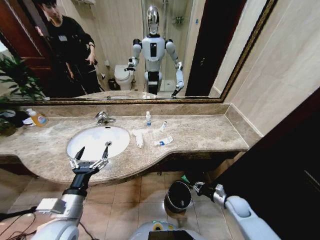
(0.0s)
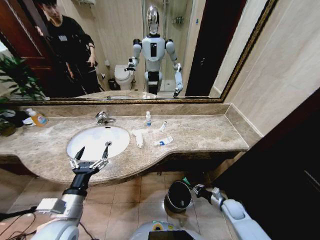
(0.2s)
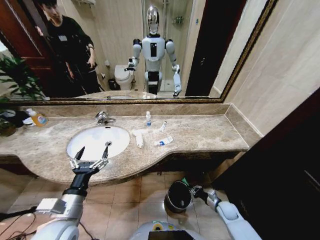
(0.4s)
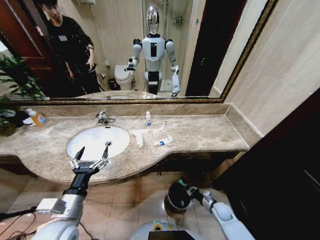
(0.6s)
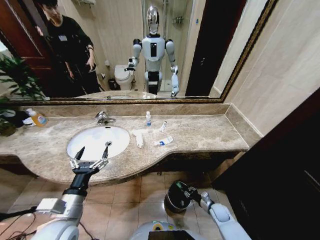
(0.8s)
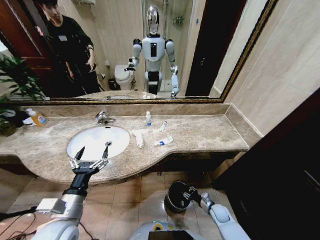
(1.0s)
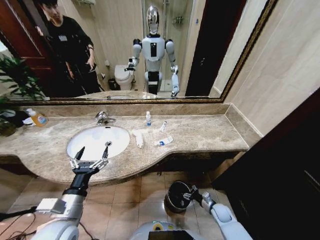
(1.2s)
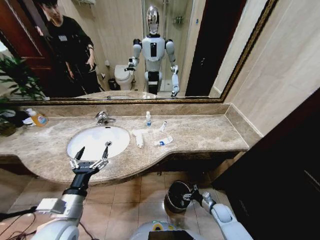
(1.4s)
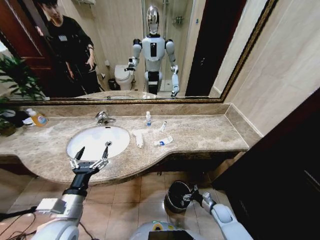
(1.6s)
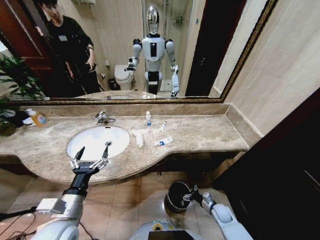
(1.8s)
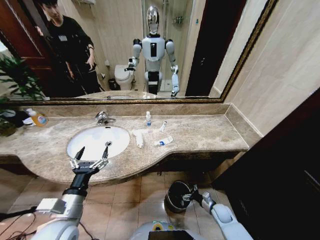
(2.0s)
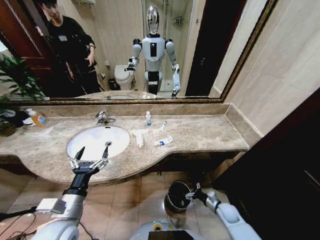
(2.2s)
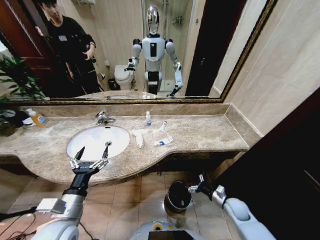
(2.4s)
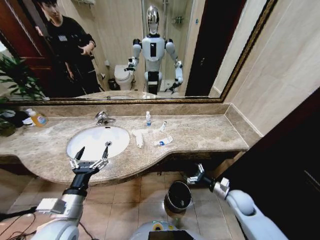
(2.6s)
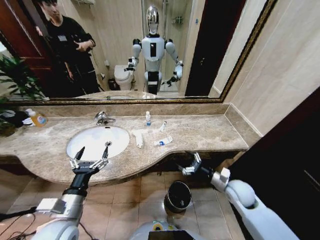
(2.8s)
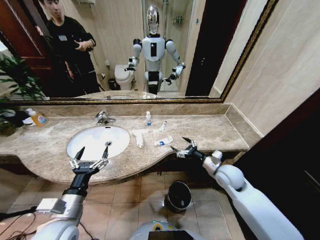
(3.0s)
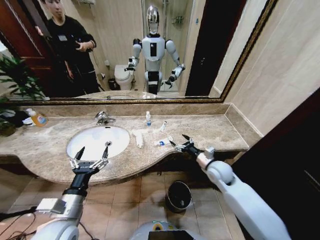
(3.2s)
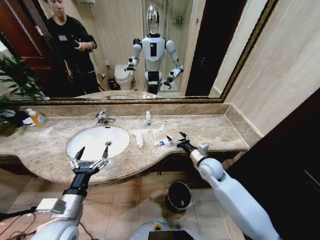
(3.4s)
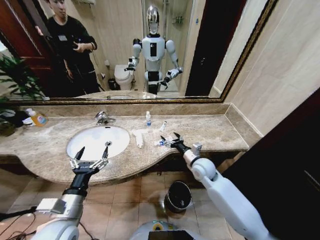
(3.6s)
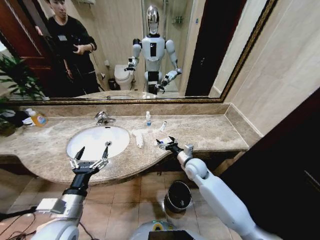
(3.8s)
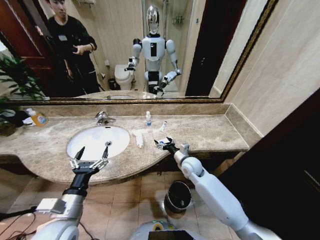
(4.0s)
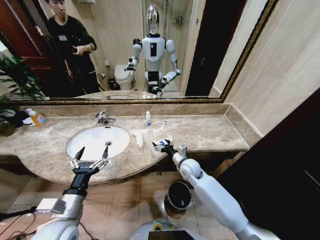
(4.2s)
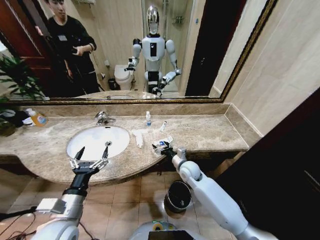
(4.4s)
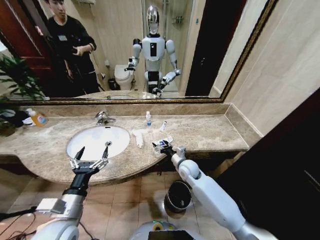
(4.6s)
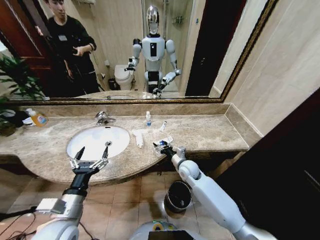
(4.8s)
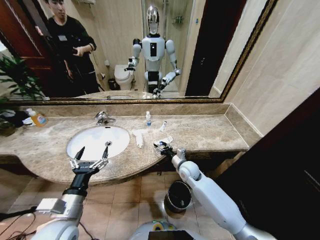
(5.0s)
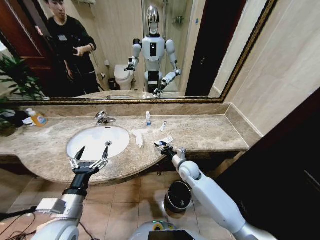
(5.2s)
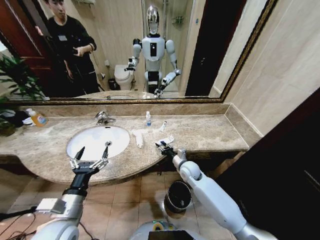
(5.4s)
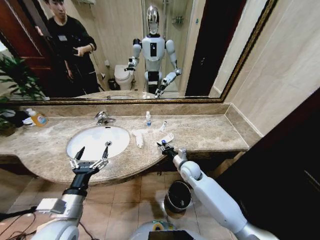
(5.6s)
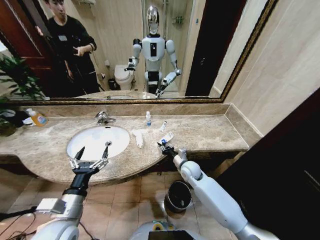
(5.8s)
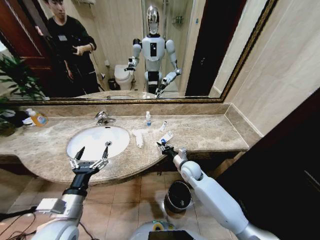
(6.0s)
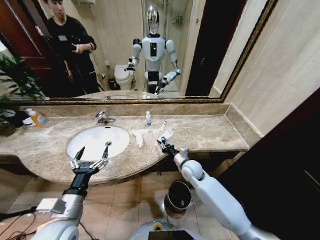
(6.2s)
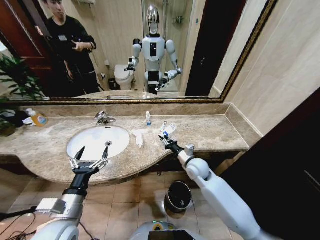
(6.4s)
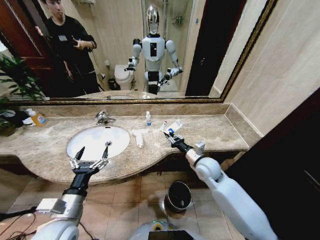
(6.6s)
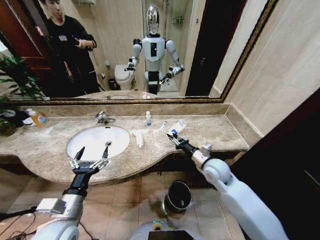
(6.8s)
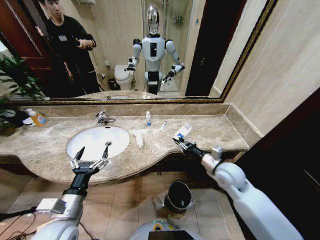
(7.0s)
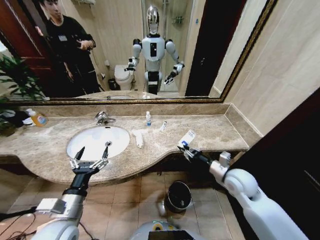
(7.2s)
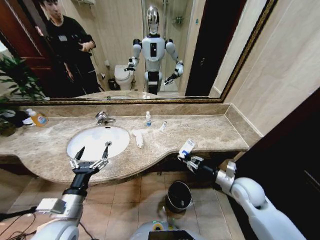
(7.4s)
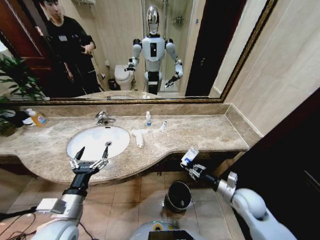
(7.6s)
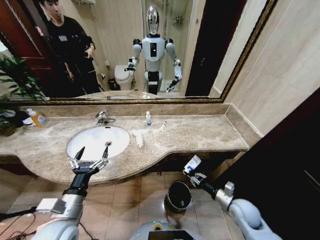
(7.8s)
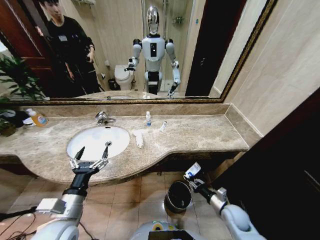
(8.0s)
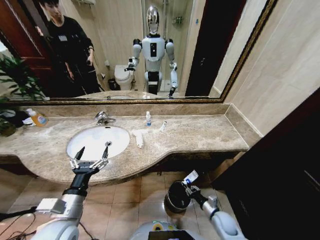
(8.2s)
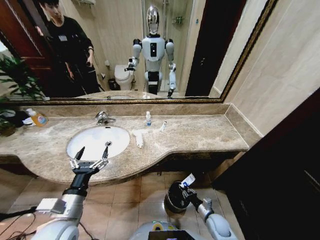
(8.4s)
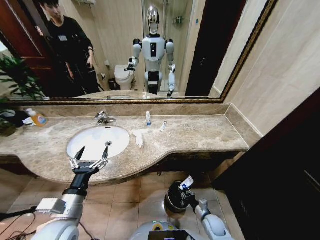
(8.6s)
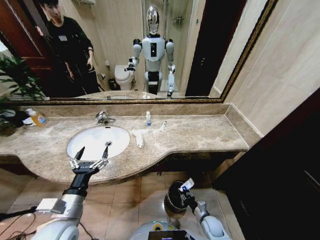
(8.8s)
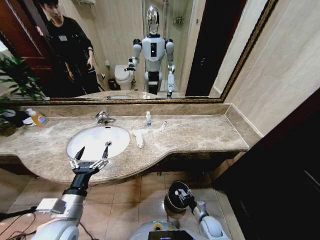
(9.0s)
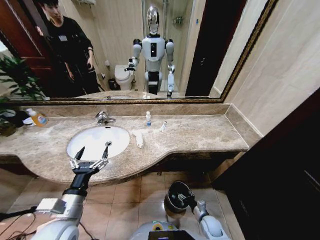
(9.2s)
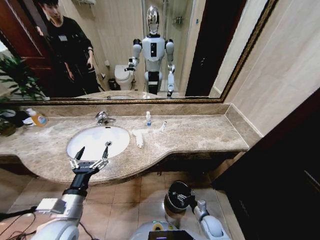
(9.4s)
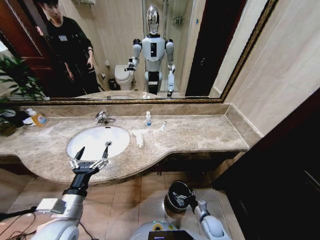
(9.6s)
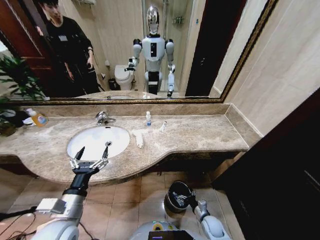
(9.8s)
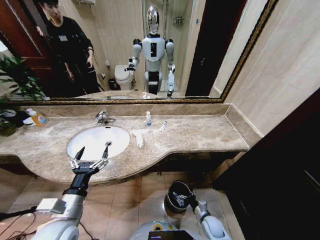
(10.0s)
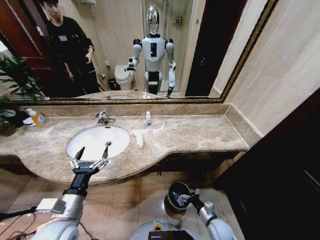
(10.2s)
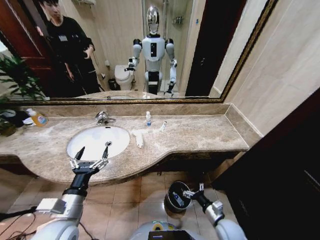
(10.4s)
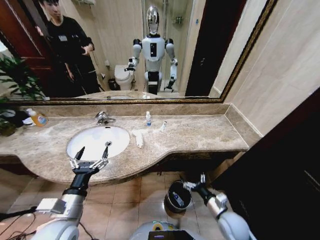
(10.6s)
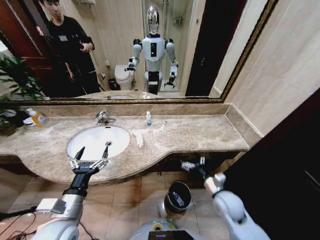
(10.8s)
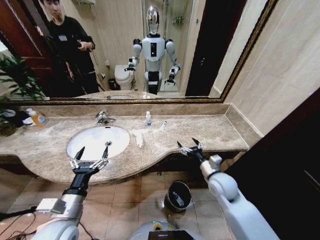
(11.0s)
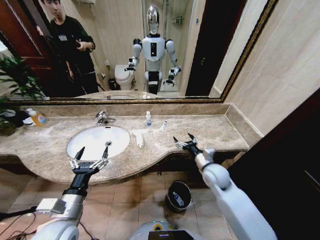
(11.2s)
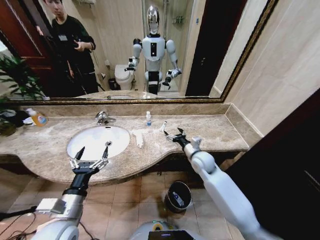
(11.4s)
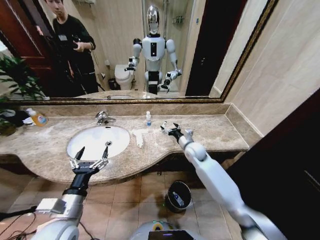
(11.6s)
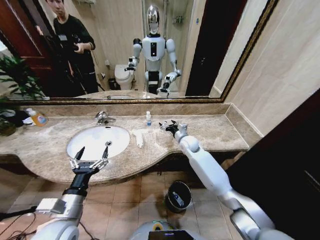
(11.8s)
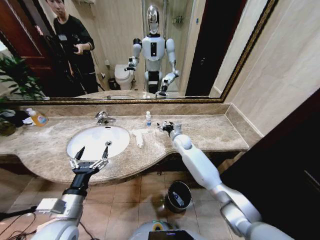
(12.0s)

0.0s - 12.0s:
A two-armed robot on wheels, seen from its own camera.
Task of the whole recording: Pick up the trash from the sink and place it in the trash bin.
0.0s - 1.6s: The right gripper travels downward and to the left by some 10 cm, and opens.
1.6s - 3.0s: The right gripper goes some 30 cm upward.
3.0s - 4.4s: The right gripper heads to the left, forward and downward, covering some 15 cm.
4.4s - 6.0s: The right gripper closes its fingers.
6.0s - 7.6s: The right gripper shifts some 25 cm to the right and backward.
7.6s - 9.0s: The right gripper is displaced downward by some 25 cm.
9.0s - 10.4s: The right gripper travels upward by roughly 10 cm, and opens its fingers.
10.4s - 12.0s: The right gripper heads forward, upward and to the left, covering about 40 cm.

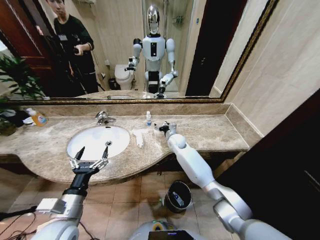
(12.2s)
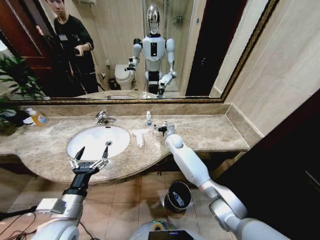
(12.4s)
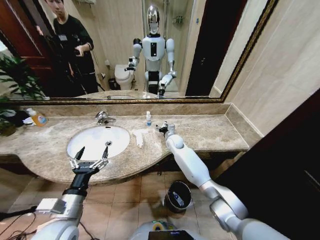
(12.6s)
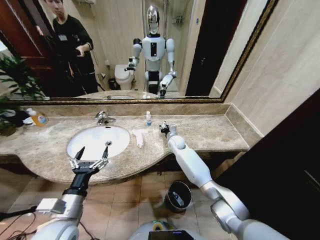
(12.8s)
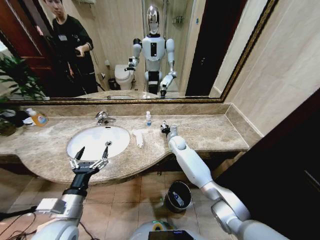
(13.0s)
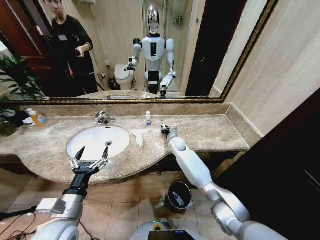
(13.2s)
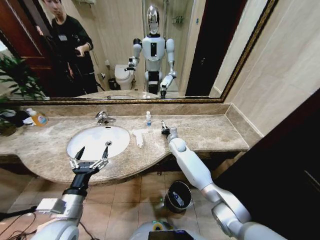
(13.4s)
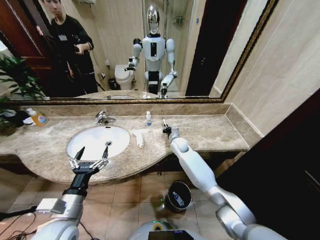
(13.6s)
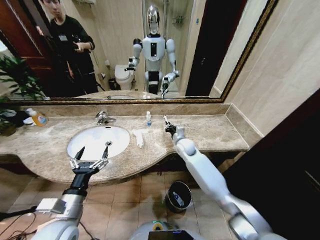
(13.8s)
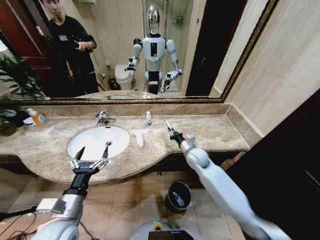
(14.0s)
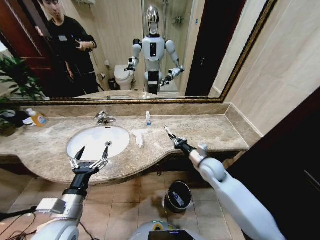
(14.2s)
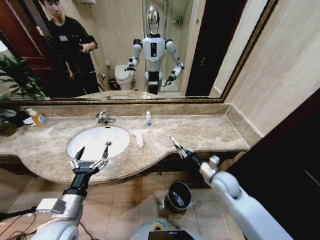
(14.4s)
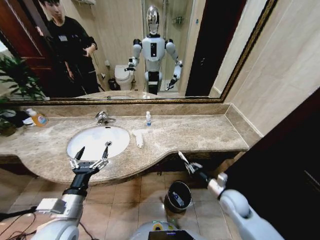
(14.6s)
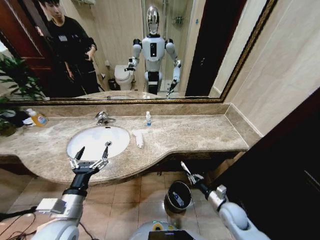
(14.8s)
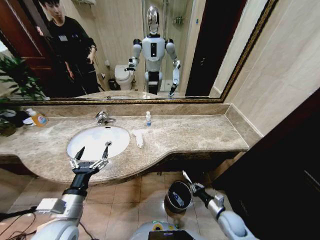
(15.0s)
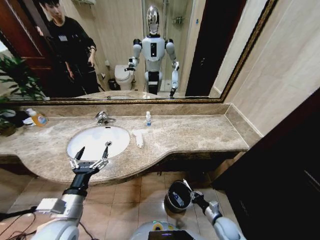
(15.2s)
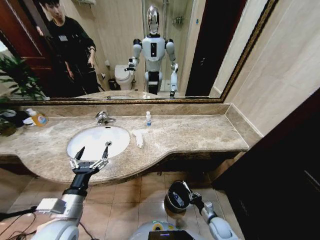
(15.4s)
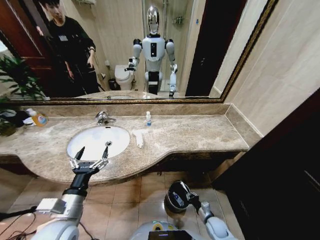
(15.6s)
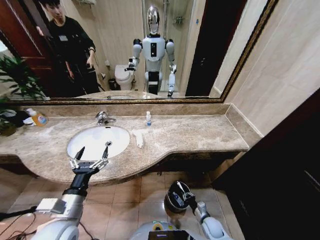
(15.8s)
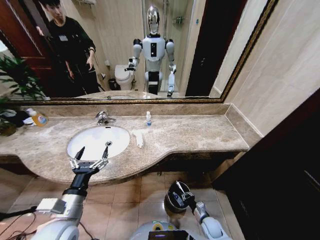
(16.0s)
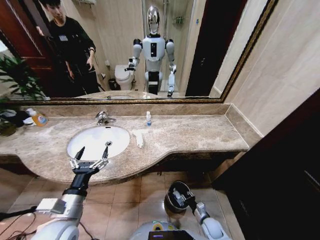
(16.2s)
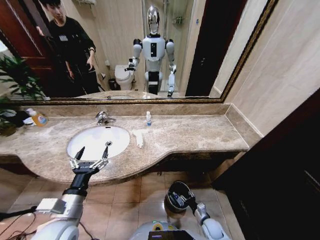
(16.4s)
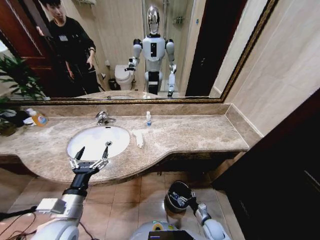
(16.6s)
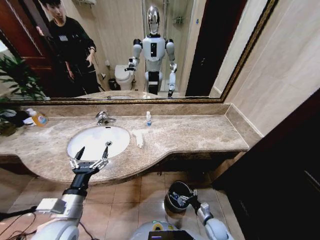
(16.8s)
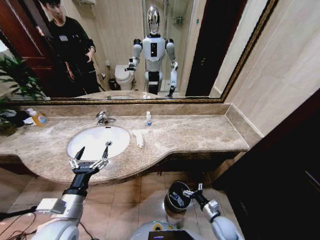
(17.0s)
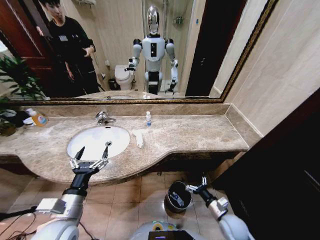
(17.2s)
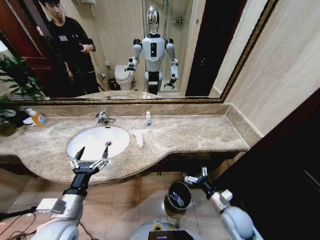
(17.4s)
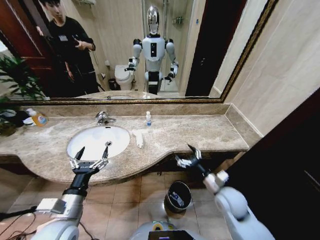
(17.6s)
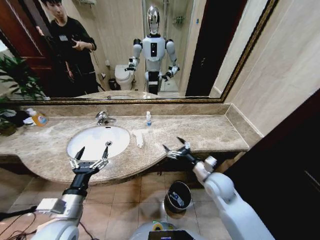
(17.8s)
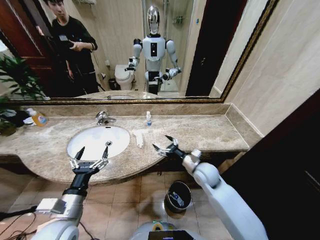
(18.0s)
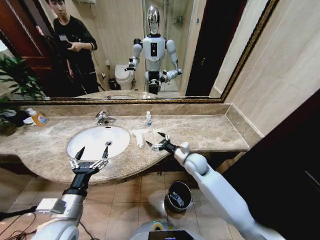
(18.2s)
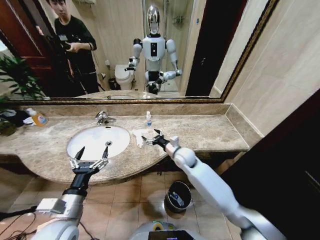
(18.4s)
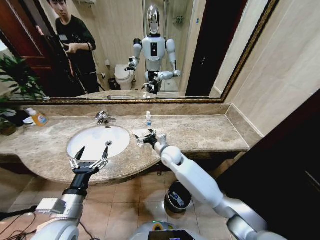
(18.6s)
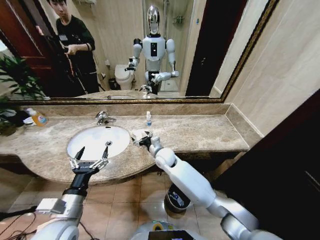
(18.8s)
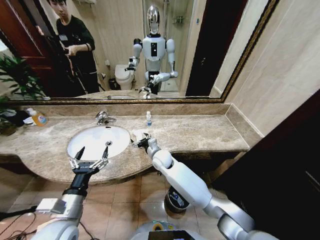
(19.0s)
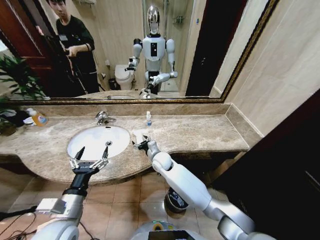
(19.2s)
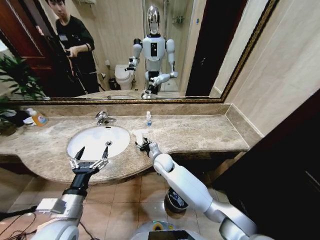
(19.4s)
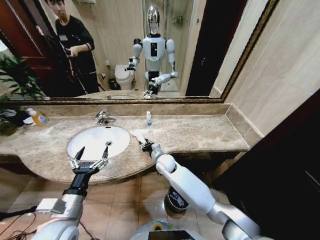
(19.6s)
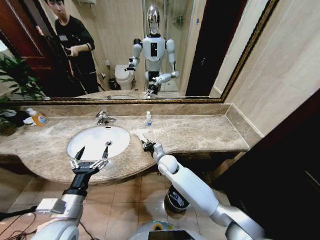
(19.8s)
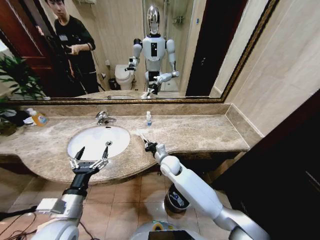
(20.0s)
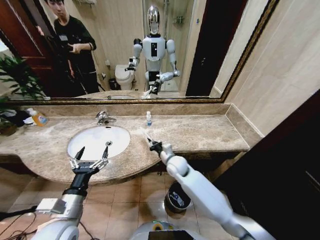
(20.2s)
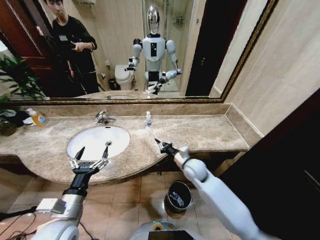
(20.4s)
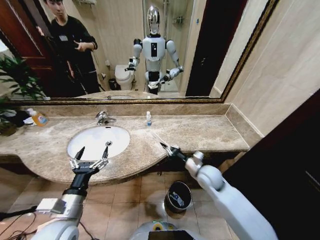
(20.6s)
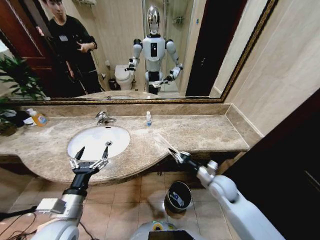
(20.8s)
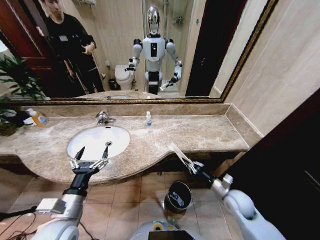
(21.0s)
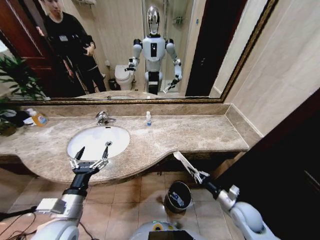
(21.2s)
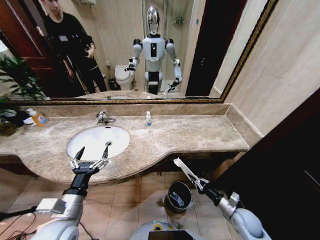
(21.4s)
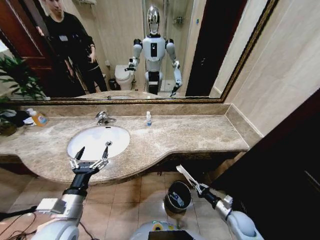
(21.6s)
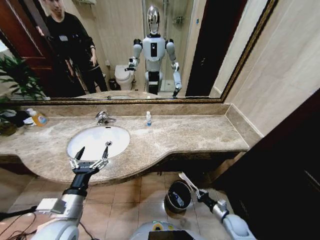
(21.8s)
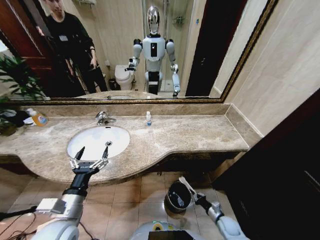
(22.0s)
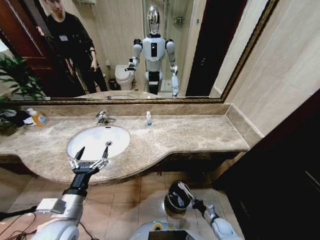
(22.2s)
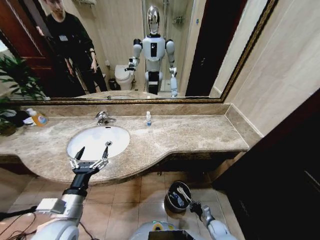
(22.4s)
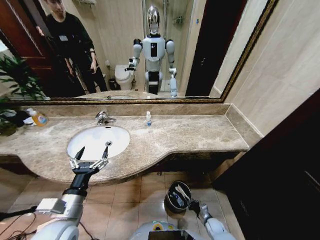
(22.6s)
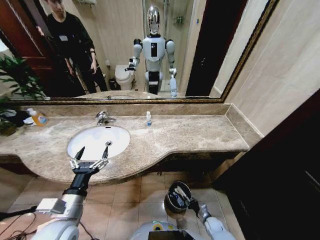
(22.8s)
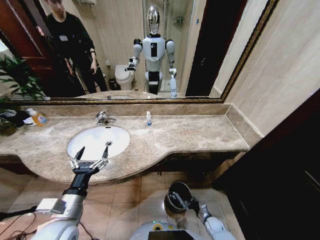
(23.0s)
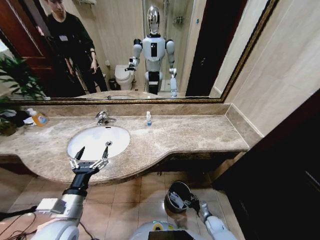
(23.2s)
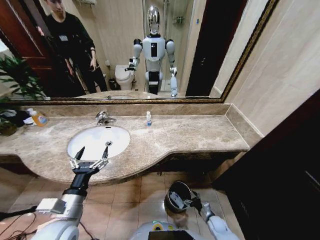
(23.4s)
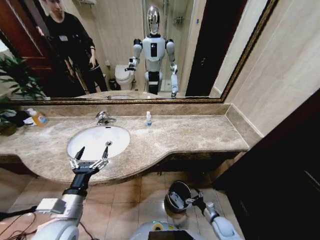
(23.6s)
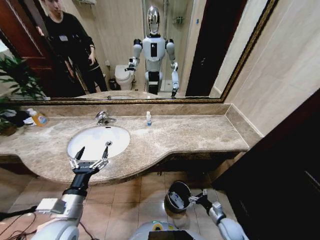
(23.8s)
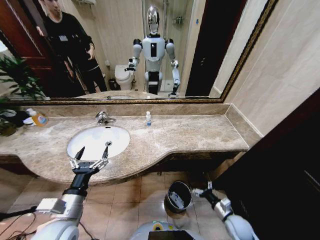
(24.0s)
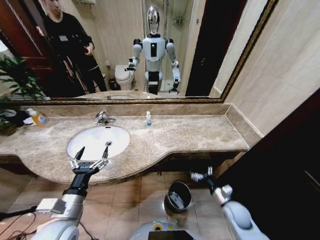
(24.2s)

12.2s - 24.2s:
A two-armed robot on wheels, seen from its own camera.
Task of the whole recording: Pick up the trash from the sink and place it in the trash bin.
12.2s - 13.8s: The right gripper goes about 5 cm backward, and closes its fingers.
13.8s - 15.2s: The right gripper moves backward, downward and to the right, approximately 40 cm.
15.2s - 16.6s: The right gripper changes place by about 5 cm, and opens up.
16.6s - 18.2s: The right gripper moves upward and forward, roughly 35 cm.
18.2s - 19.8s: The right gripper moves to the left, about 10 cm, and closes.
19.8s - 21.2s: The right gripper travels to the right and backward by approximately 35 cm.
21.2s - 22.6s: The right gripper goes approximately 25 cm downward.
22.6s - 24.2s: The right gripper is displaced upward by approximately 25 cm, and opens its fingers.
